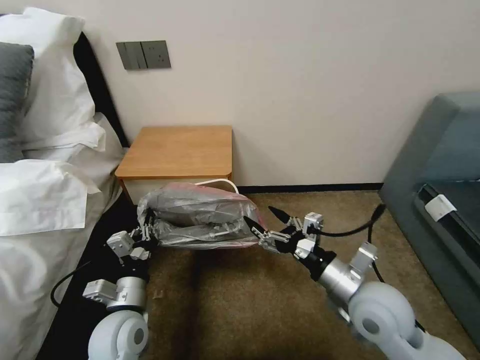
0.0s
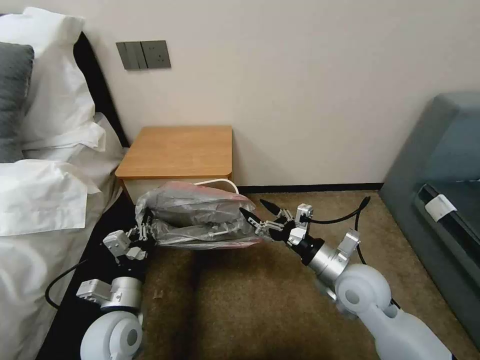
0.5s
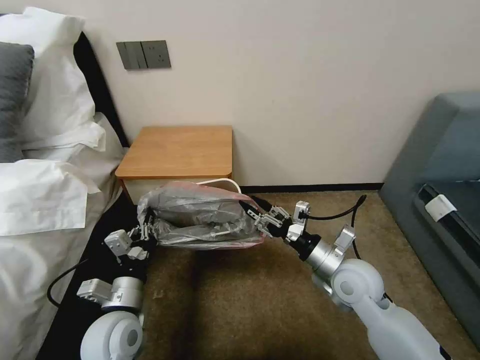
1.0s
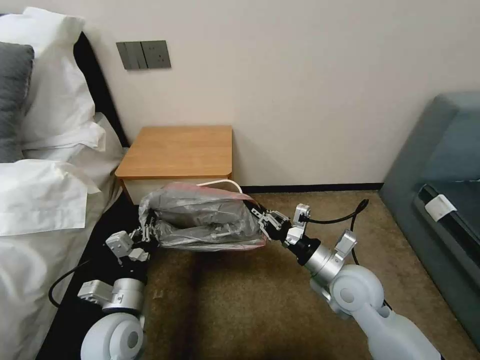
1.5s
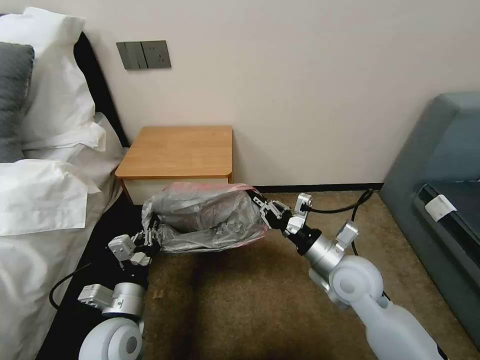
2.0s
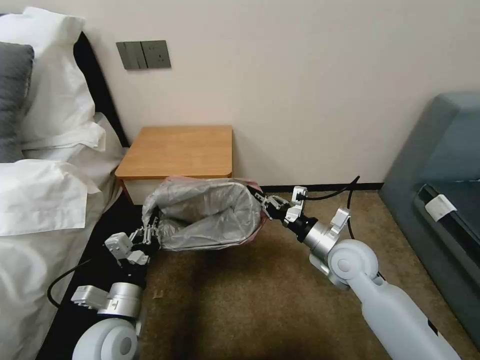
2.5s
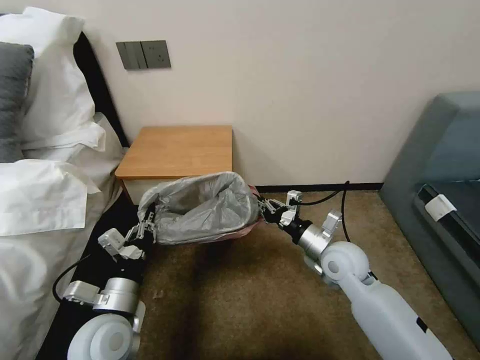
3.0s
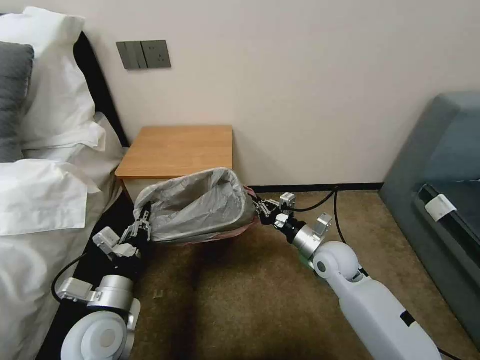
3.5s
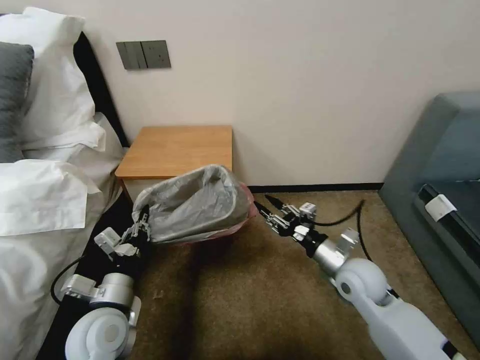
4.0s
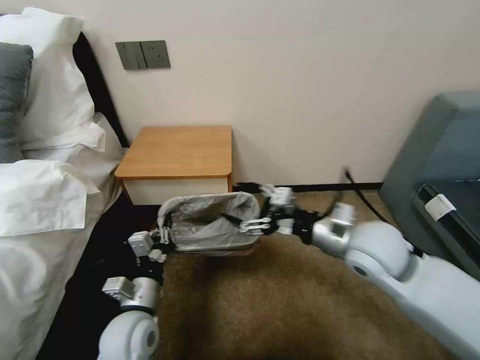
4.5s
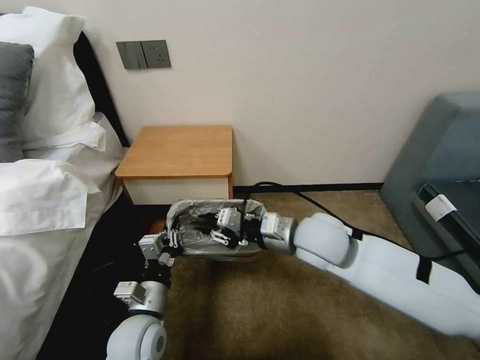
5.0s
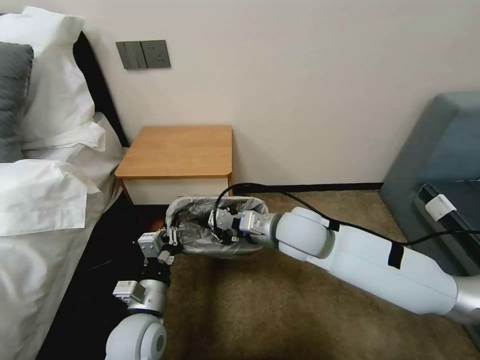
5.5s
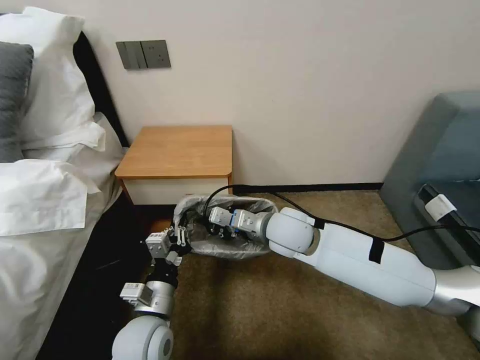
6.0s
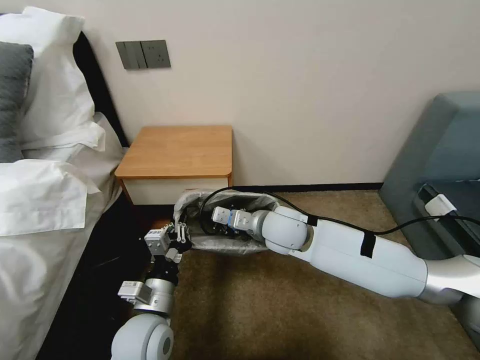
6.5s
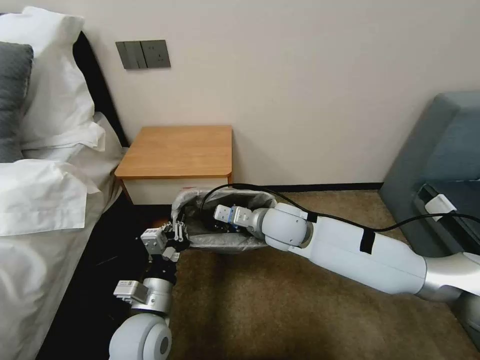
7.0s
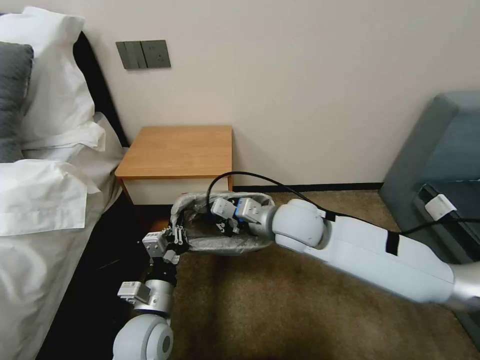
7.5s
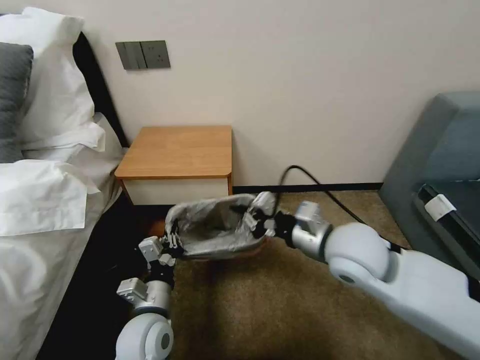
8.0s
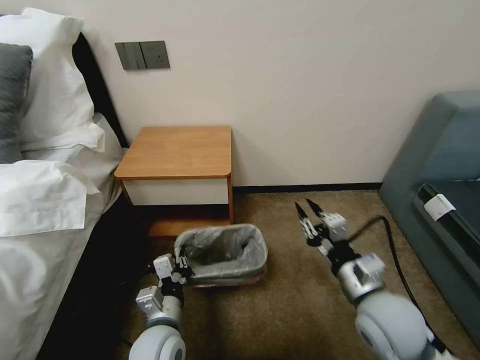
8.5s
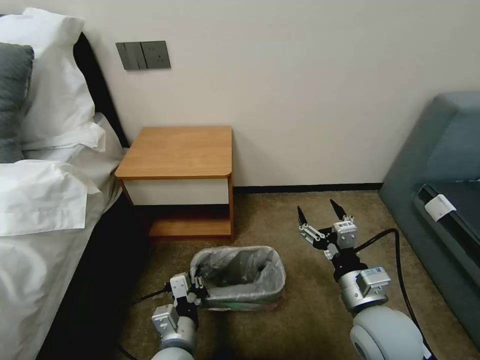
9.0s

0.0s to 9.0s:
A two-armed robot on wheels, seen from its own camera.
Task of the whole recording: Pick up the garbage bag from the table and place it over the trash can.
0.0s to 2.0s: The right gripper goes roughly 5 cm forward, and closes up.
2.0s to 4.5s: The right gripper is displaced upward by roughly 10 cm, and opens up.
4.5s to 7.0s: The right gripper moves to the left and forward, about 15 cm, and closes.
7.0s to 9.0s: The right gripper moves backward and to the right, about 25 cm, and opens. The left gripper is displaced downward and to the right by some 10 cm.

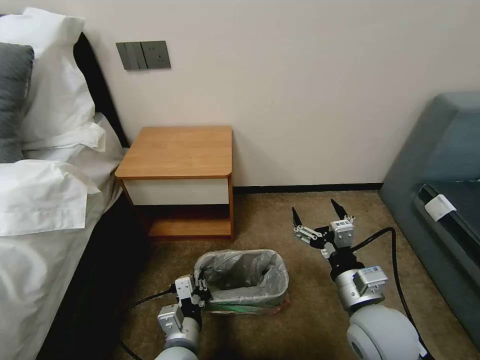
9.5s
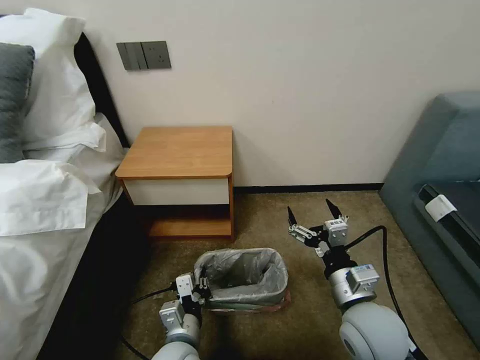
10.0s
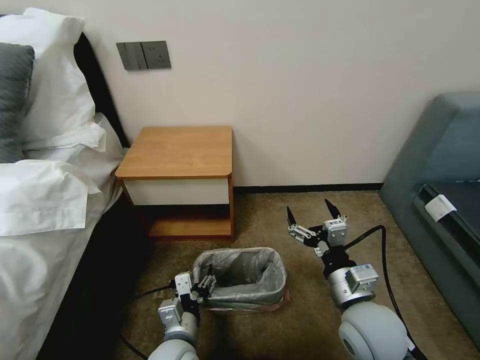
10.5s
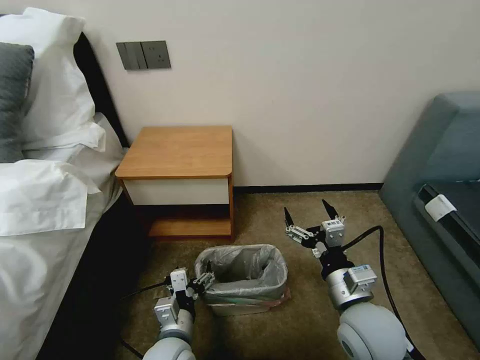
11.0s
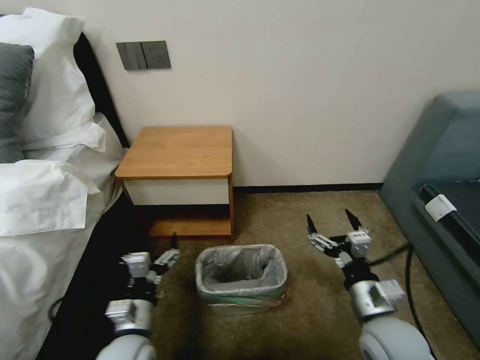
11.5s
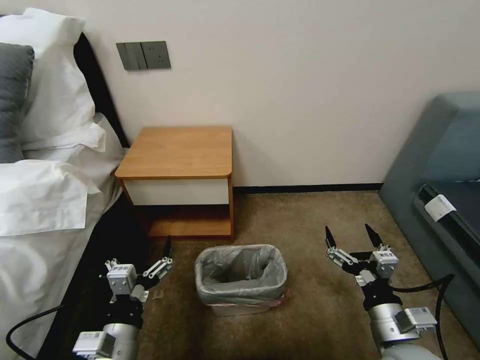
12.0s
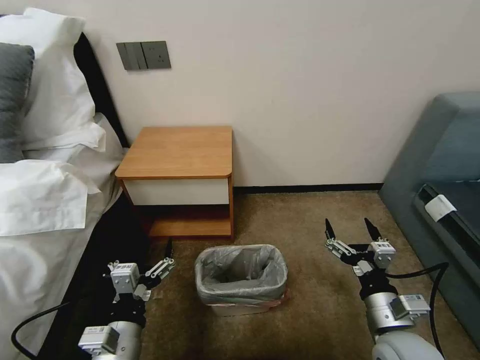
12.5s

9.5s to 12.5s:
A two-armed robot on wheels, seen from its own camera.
Task of the whole recording: Pick up the garbage bag from the table and place it over the trash can.
9.5s to 11.0s: The left gripper opens its fingers.
11.0s to 12.5s: The left gripper moves upward, to the left and backward, some 10 cm. Meanwhile the right gripper moves to the right, some 5 cm.
